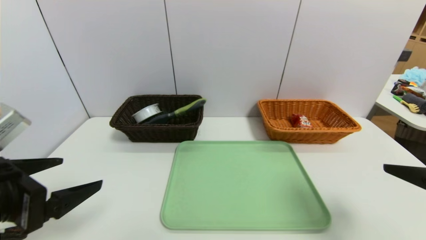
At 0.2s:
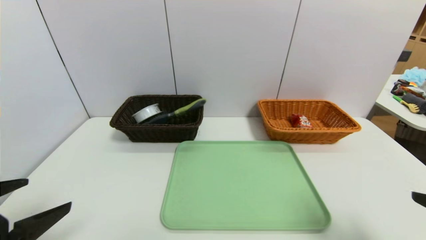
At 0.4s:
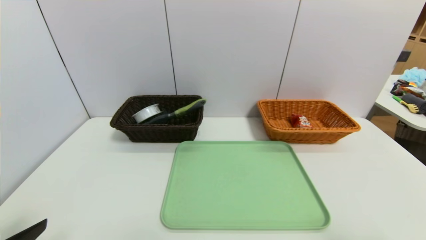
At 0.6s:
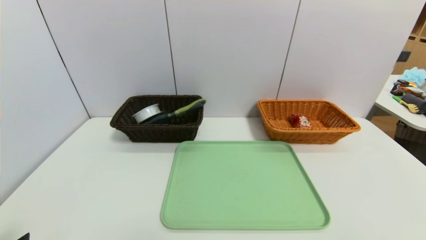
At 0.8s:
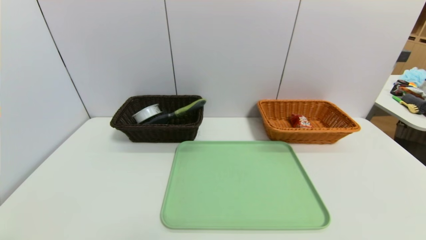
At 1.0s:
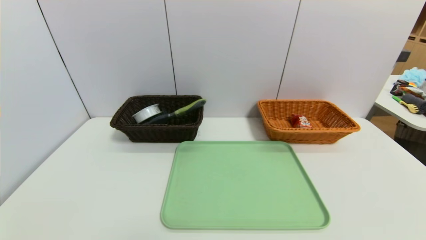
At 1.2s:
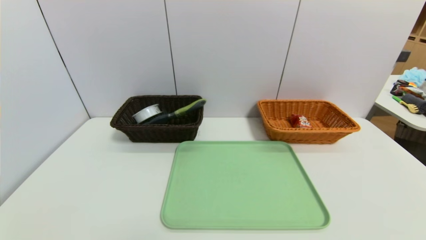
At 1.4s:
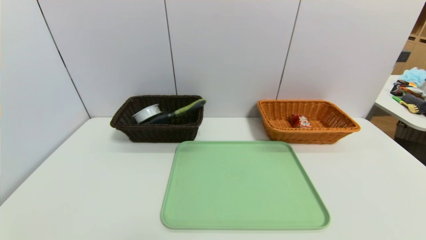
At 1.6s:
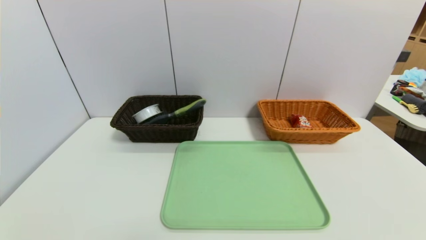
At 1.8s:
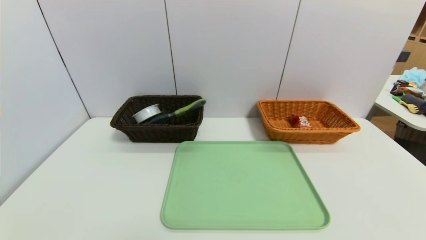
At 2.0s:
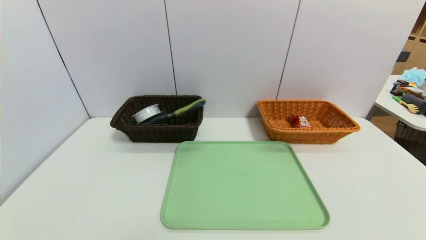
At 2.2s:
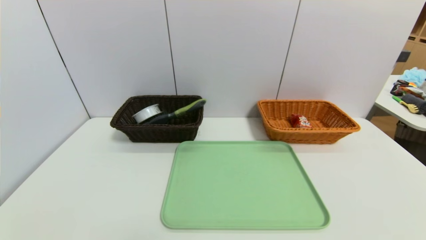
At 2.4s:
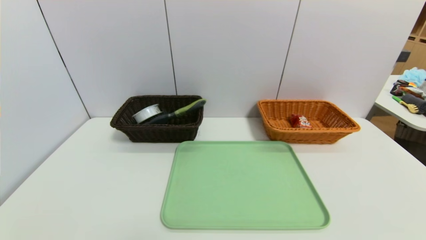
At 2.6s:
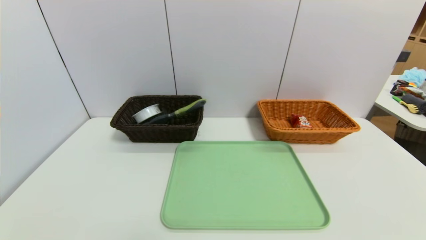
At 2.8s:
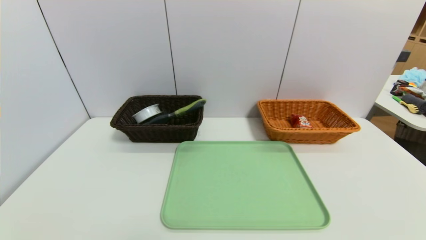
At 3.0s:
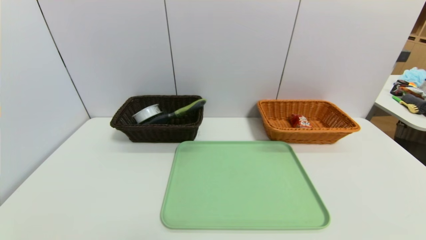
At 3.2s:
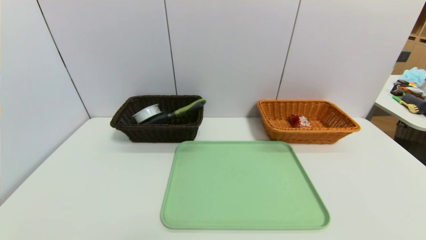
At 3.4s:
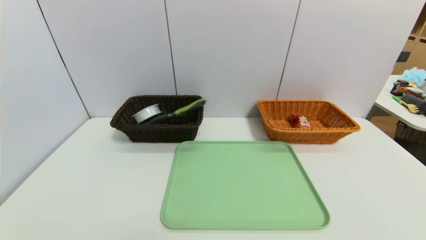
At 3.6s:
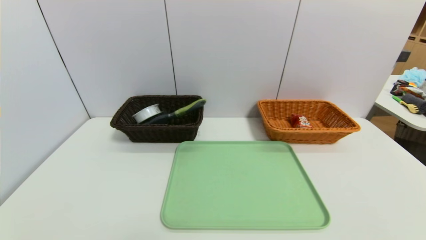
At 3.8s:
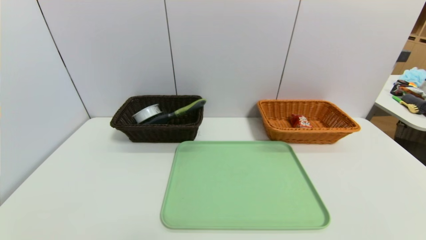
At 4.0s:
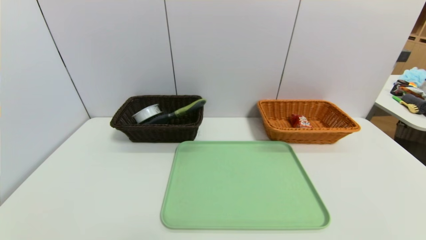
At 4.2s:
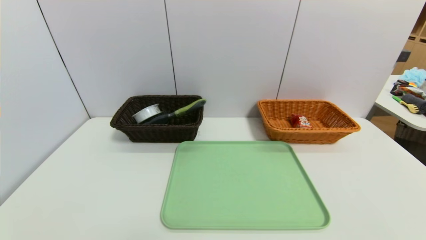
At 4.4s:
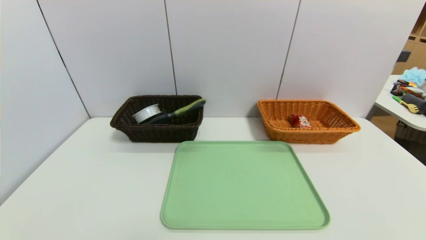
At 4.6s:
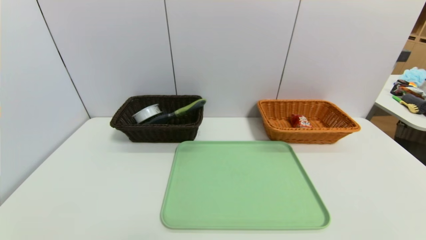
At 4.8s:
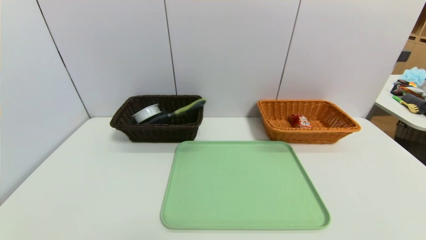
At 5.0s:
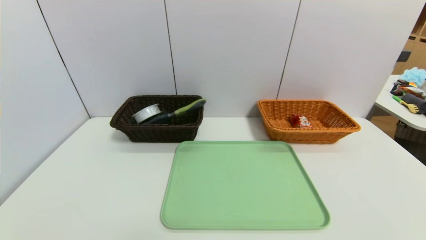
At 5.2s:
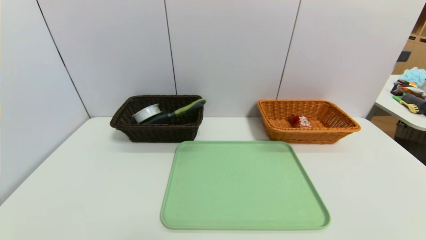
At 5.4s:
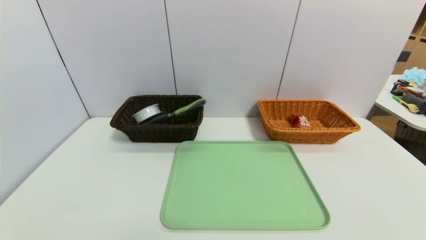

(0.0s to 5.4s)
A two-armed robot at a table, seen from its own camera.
Task of the whole recording: place the food in the right basket with the right gripper, and place the non food items in the left basket with the left gripper.
0.0s - 1.4s: Both grippers move backward and downward, approximately 20 cm.
4.0s - 5.4s: The two grippers keep their place.
